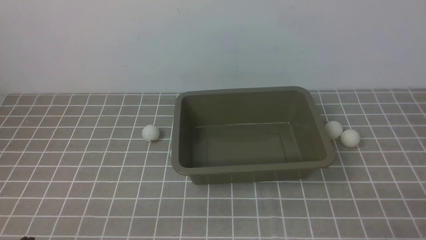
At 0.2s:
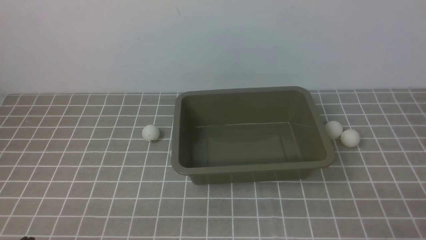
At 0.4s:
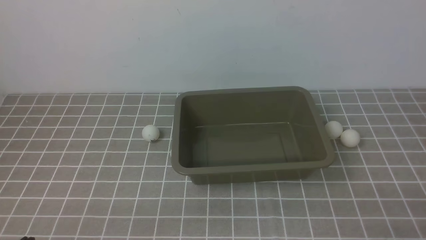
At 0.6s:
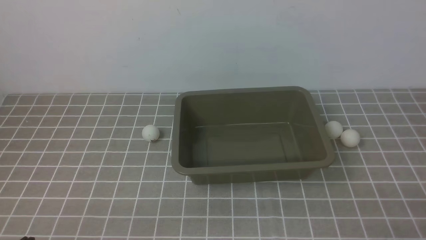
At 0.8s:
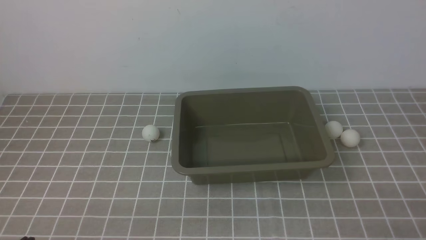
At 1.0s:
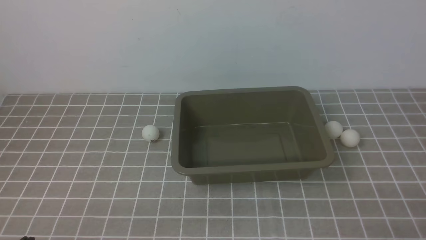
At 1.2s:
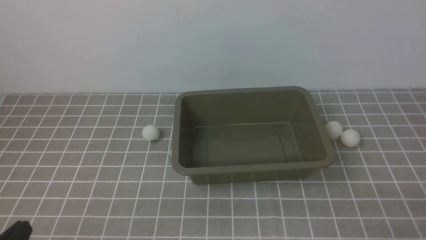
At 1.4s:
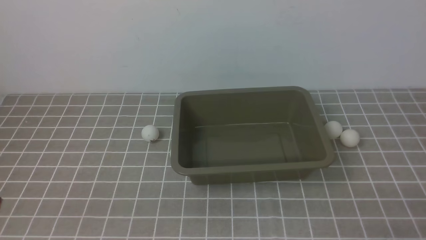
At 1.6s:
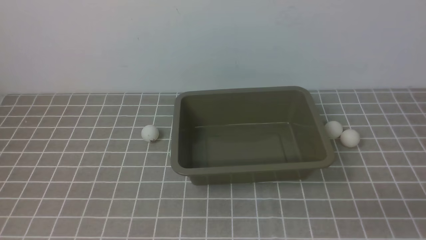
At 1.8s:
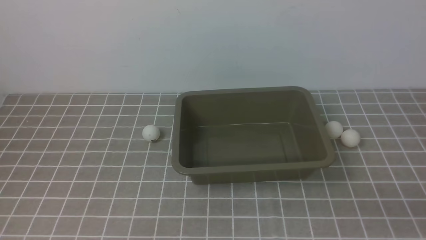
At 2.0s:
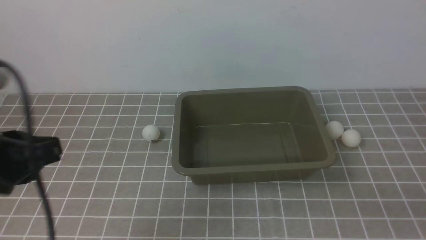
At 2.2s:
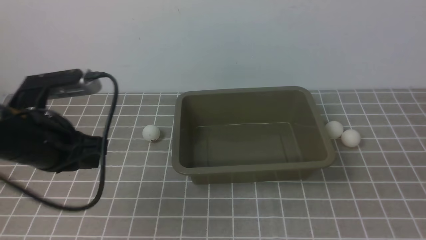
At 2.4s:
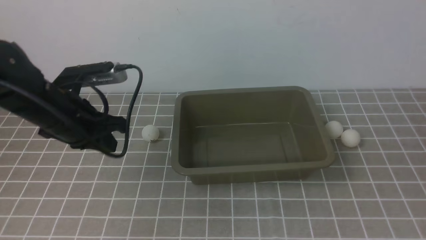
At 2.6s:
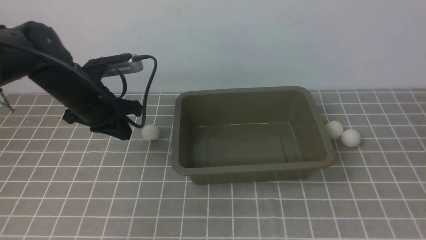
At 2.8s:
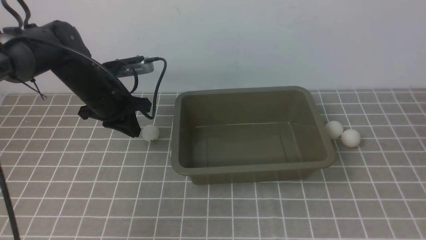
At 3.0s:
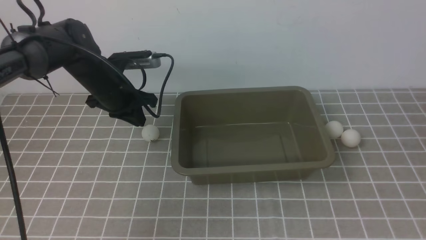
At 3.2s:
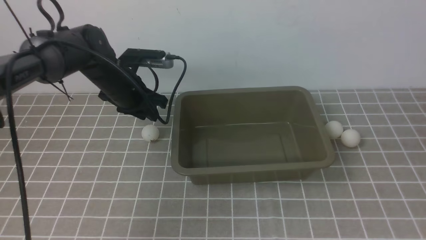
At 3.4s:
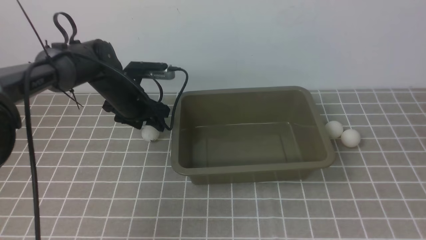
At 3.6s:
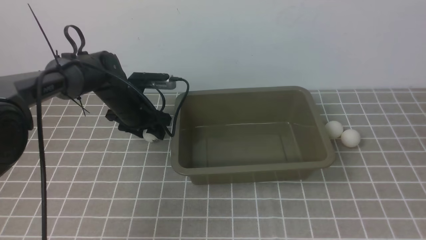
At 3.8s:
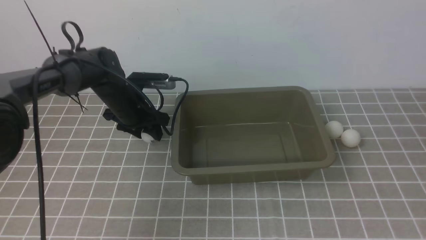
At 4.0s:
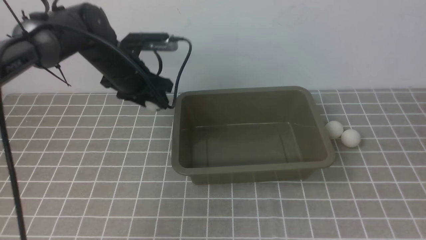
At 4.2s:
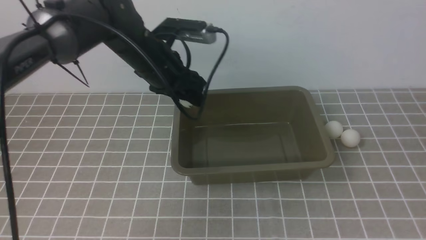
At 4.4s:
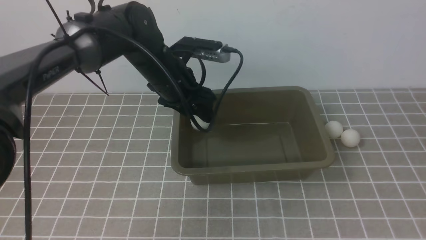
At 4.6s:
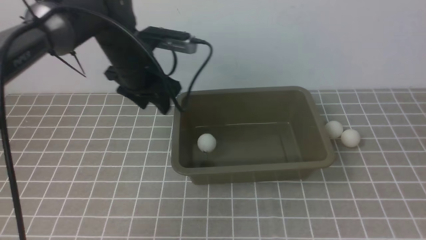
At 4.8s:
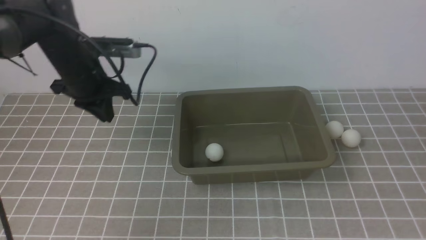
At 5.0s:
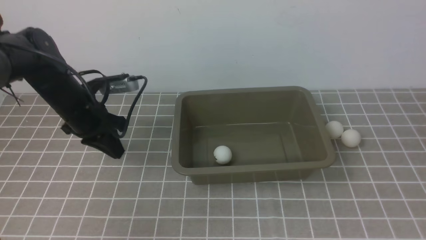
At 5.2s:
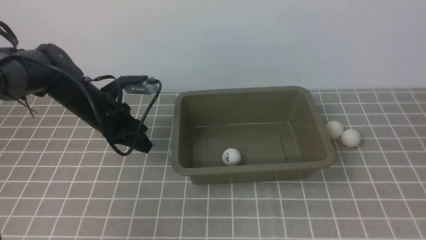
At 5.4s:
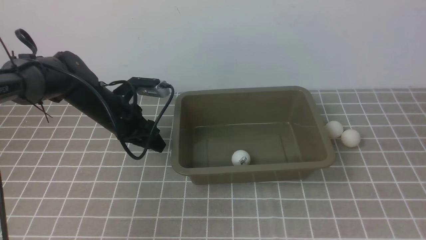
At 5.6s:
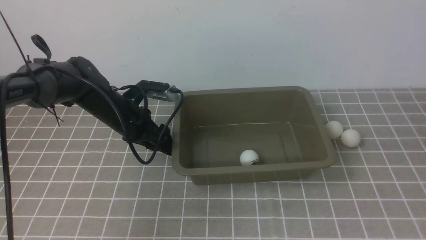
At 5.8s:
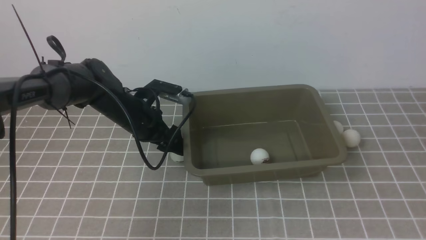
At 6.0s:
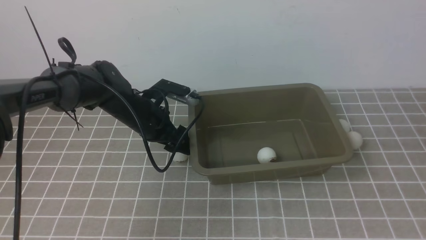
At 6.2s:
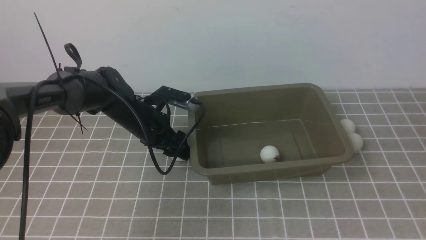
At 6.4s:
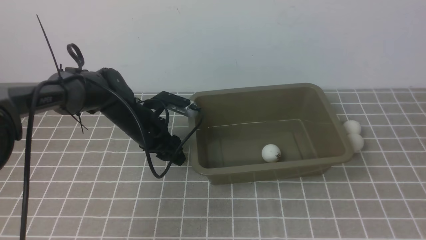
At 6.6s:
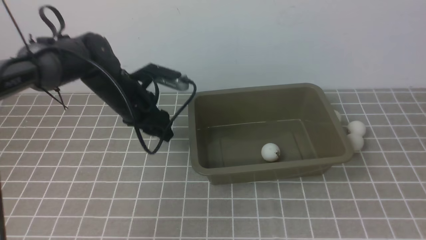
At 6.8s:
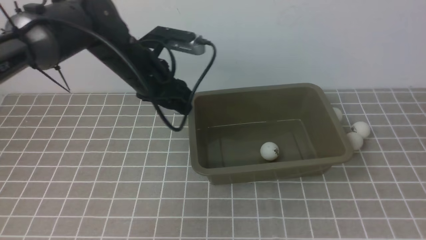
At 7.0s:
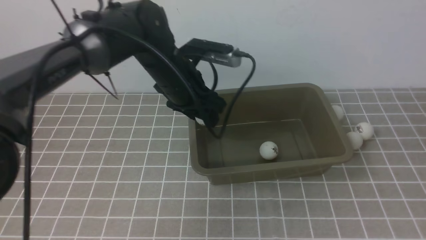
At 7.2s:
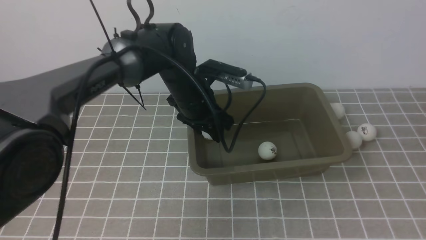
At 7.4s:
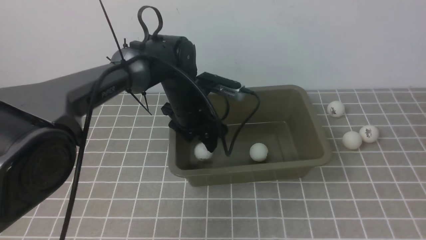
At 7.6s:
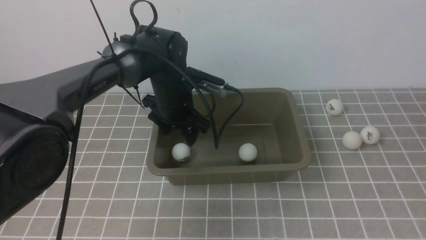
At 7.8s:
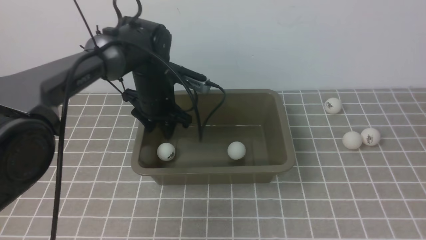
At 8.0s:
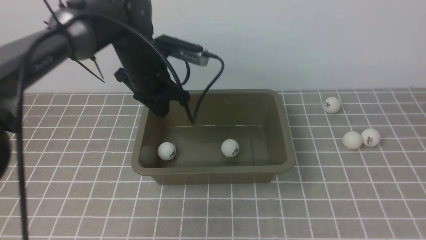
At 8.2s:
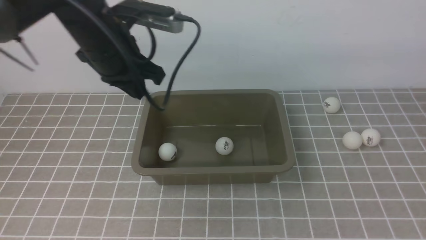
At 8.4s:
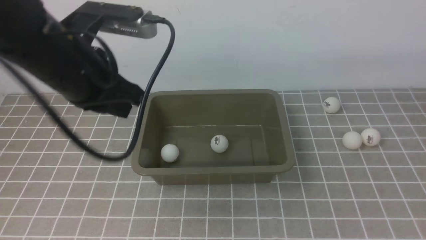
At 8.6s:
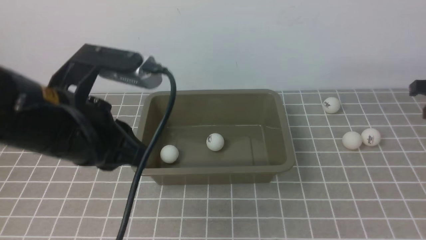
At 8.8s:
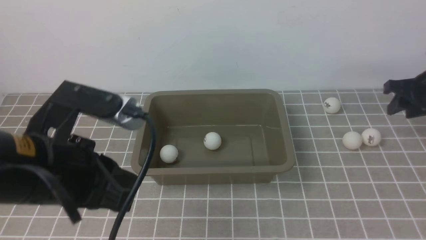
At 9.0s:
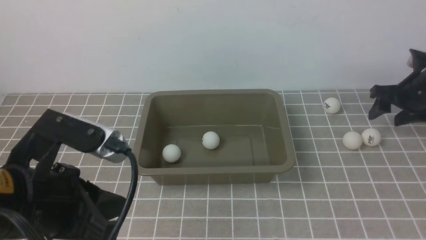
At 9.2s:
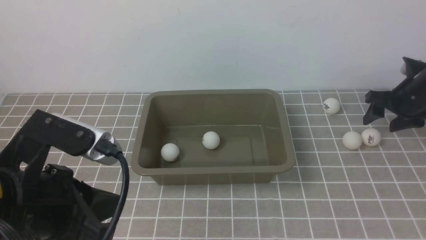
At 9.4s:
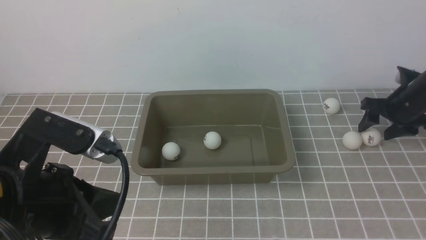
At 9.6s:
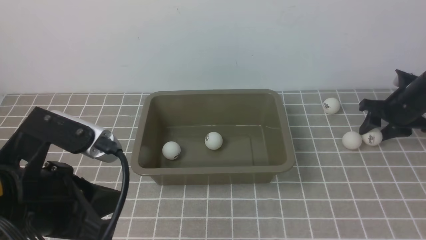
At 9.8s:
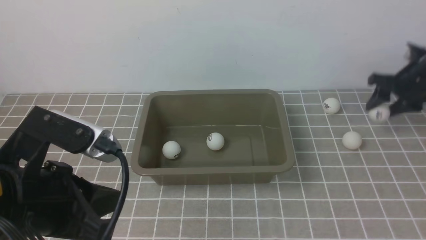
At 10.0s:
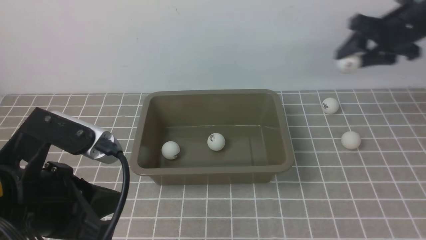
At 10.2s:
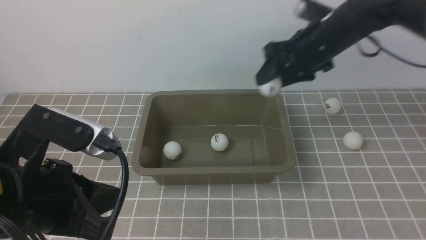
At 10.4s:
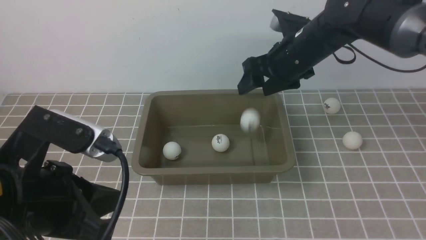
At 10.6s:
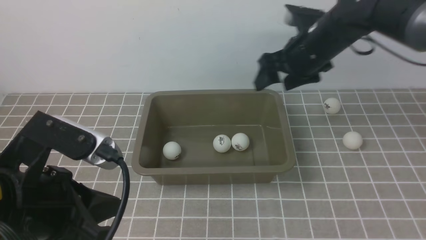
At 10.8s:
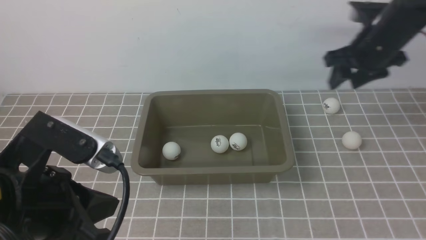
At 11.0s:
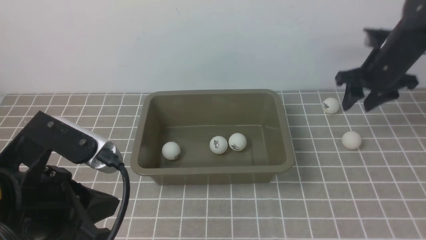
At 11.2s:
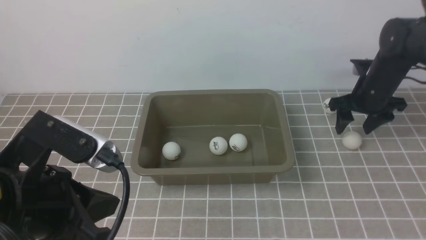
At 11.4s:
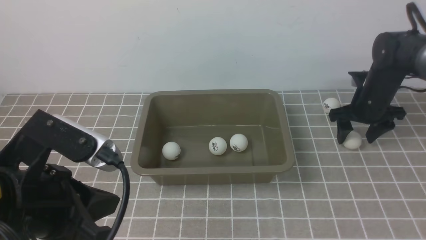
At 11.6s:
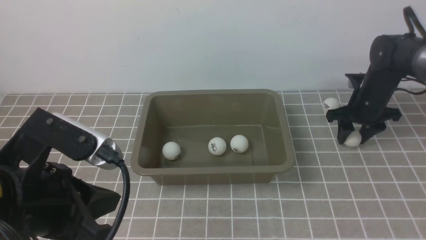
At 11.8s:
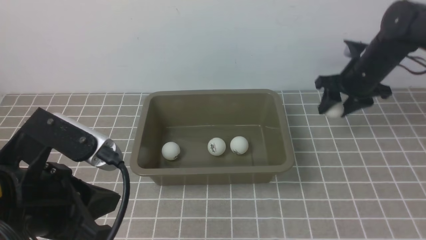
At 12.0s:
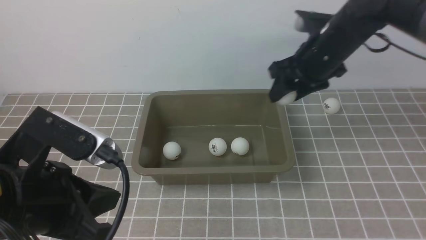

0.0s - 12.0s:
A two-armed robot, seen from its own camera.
Step, 0.0s - 3.8s: use the left arm to clamp the table tennis ball closest to it.
Step, 4.2s - 4.6s: use the left arm to put the table tennis ball into the box.
Step, 4.8s - 6.4s: use the left arm to clamp the table tennis ball closest to it.
Step, 6.8s - 7.8s: use the left arm to put the table tennis ball into the box.
Step, 8.2s - 9.8s: use the right arm to clamp the table tennis ball closest to it.
Step, 10.0s - 10.4s: use the right arm to put the table tennis ball into the box.
Step, 10.6s - 11.6s: use the right arm to clamp the table tennis ball closest to it.
1.6s - 3.0s: The left gripper travels forward by roughly 40 cm, while the right gripper travels upward by some 15 cm.
3.0s - 4.4s: The left gripper travels to the right and upward by approximately 10 cm, and opens its fingers.
4.4s - 6.0s: The left gripper travels downward by approximately 10 cm, reaches some 10 cm to the left, then returns, and closes and opens again.
6.0s - 7.6s: The left gripper travels to the right by roughly 5 cm.
7.6s - 9.0s: The right gripper travels forward and downward by some 30 cm, and opens up; the left gripper heads backward, covering about 25 cm, and closes its fingers.
9.0s - 10.4s: The right gripper is displaced to the left and upward by approximately 25 cm.
10.4s - 12.0s: The right gripper reaches approximately 15 cm to the right, then returns.

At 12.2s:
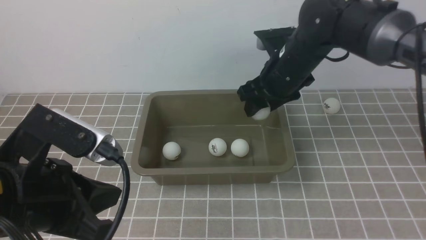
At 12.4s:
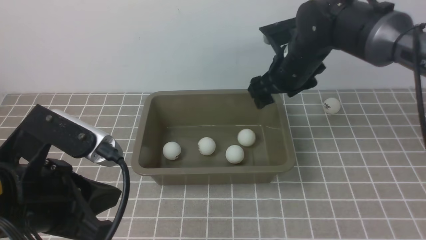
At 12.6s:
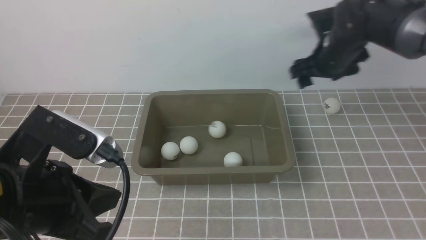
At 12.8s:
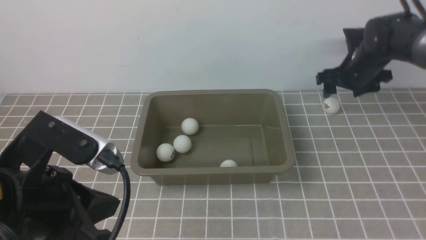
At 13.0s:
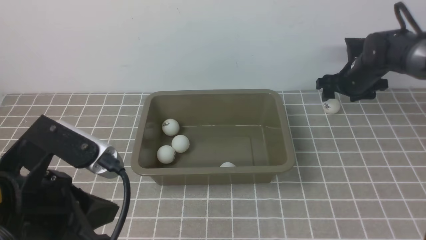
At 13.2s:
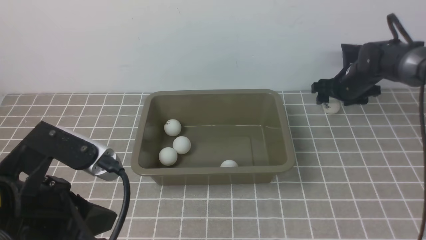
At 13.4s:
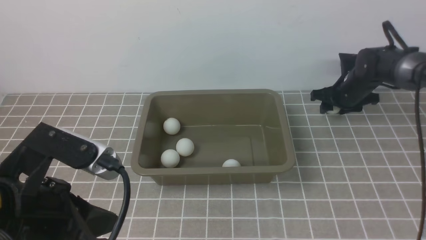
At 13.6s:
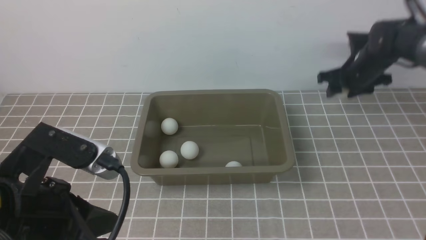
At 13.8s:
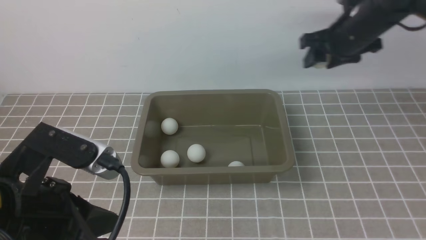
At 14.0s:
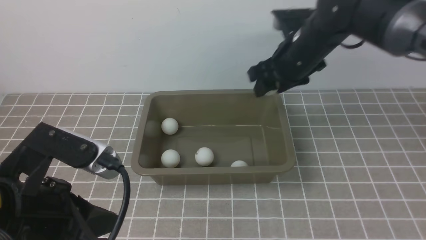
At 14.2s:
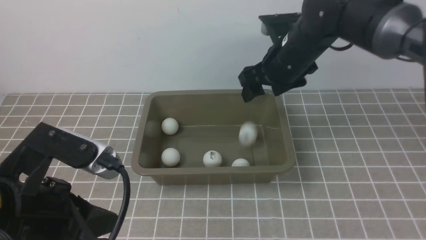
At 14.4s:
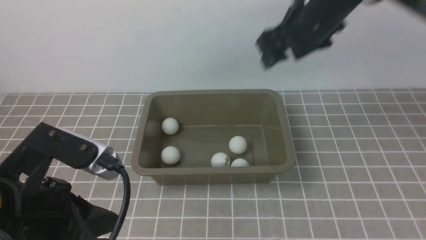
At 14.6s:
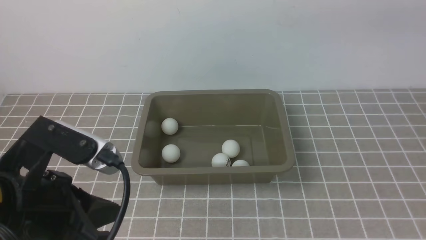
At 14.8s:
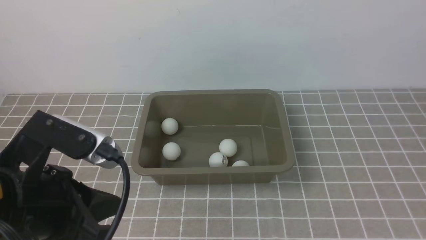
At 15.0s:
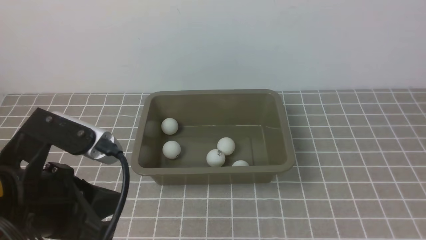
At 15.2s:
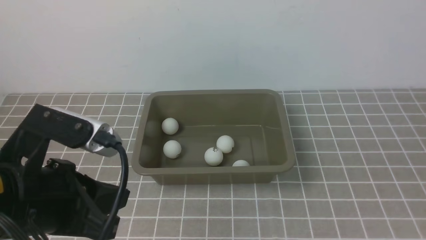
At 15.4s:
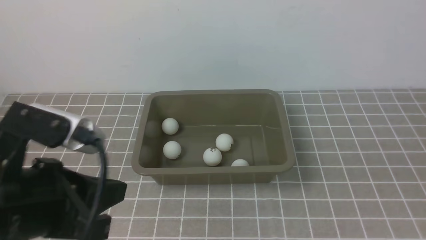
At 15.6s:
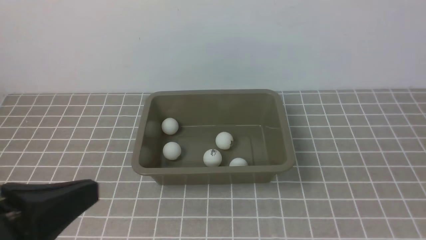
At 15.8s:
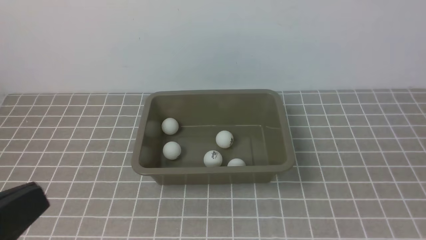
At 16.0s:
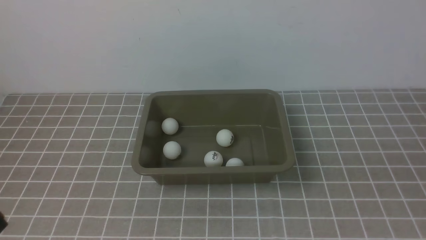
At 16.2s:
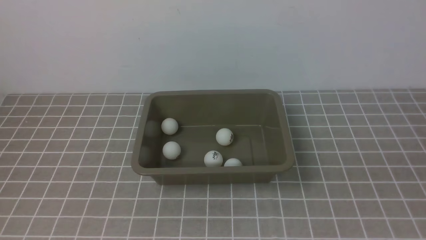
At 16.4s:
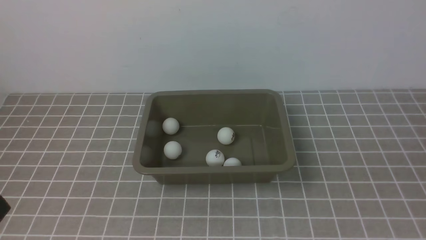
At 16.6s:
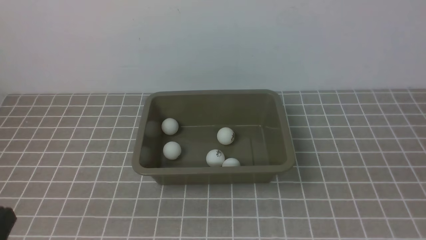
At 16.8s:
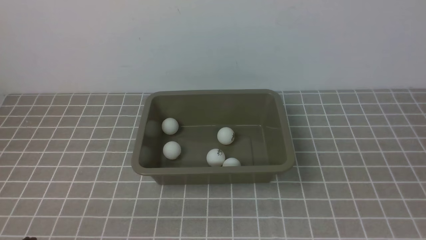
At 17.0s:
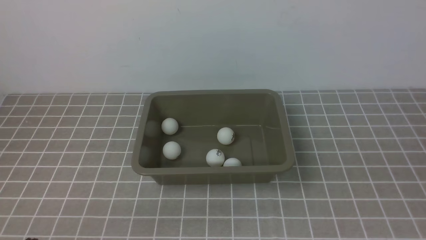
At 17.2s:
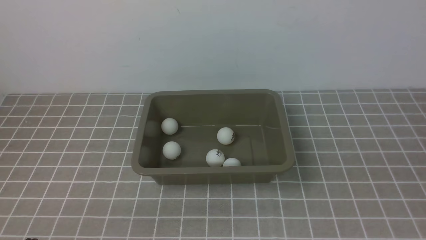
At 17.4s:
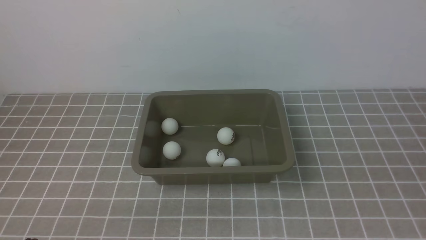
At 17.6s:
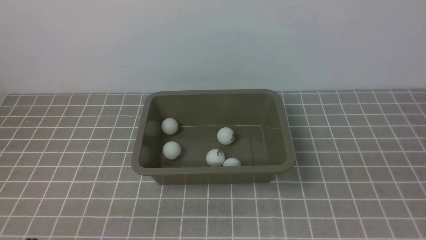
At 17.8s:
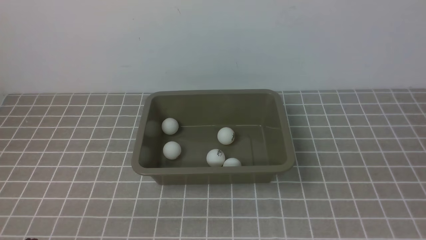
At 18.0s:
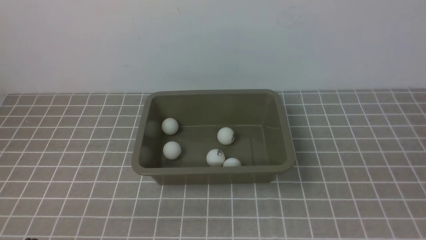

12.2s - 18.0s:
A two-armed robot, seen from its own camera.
Step, 12.6s - 13.6s: use the right arm to clamp the table tennis ball closest to it.
Step, 13.8s - 14.2s: use the right arm to put the table tennis ball into the box.
12.2s - 13.6s: The right gripper is displaced to the right and forward by roughly 15 cm.
13.6s - 15.0s: The right gripper is displaced backward and upward by some 50 cm, and closes up.
15.0s - 16.6s: The right gripper shifts about 10 cm downward. The left gripper shifts roughly 15 cm backward, to the left and downward.
